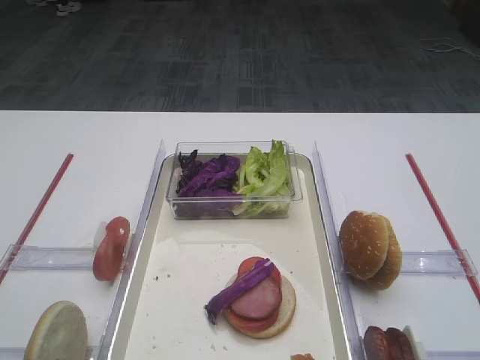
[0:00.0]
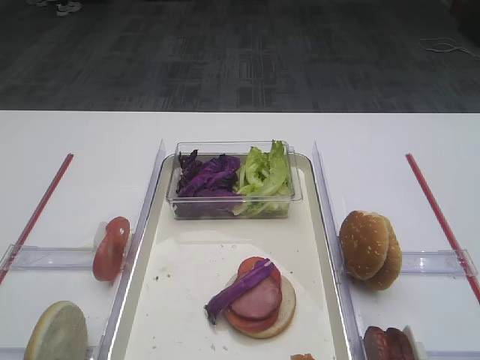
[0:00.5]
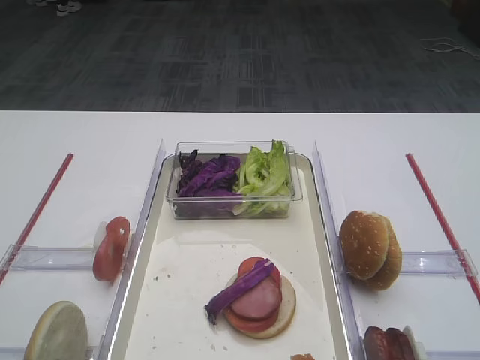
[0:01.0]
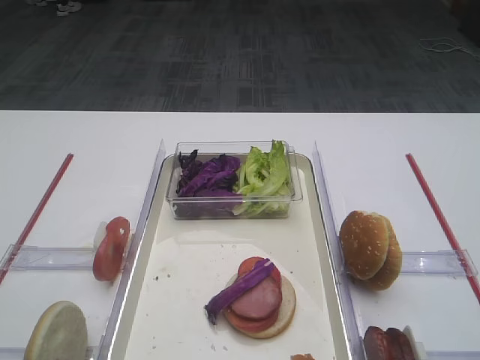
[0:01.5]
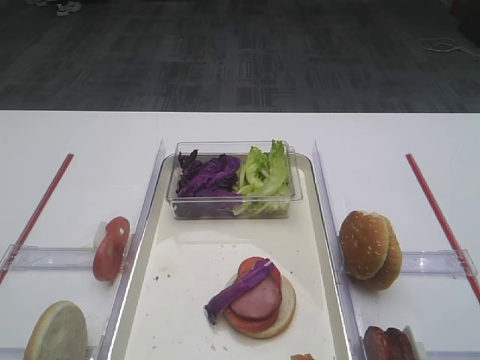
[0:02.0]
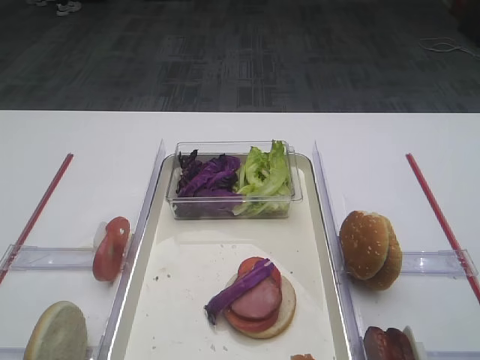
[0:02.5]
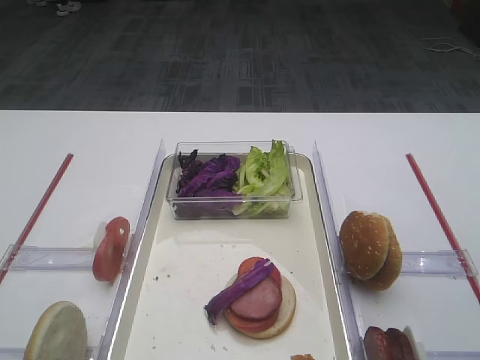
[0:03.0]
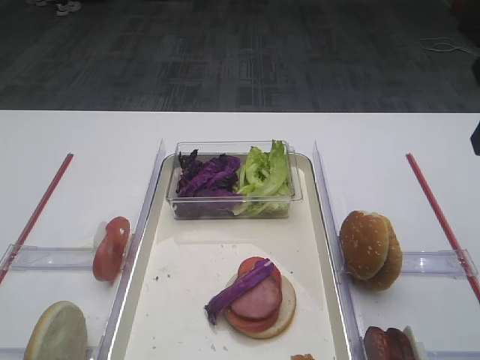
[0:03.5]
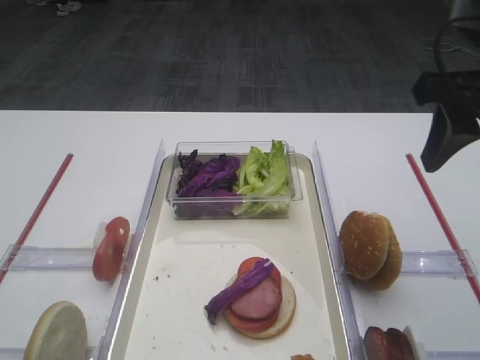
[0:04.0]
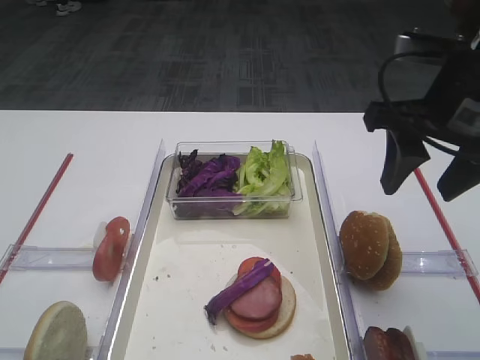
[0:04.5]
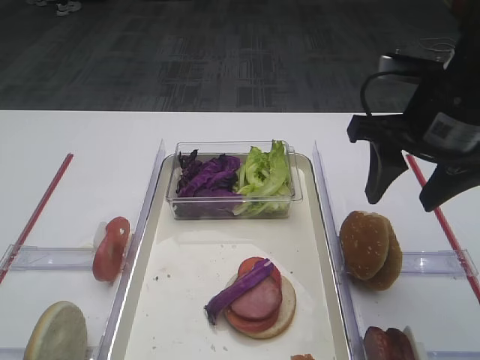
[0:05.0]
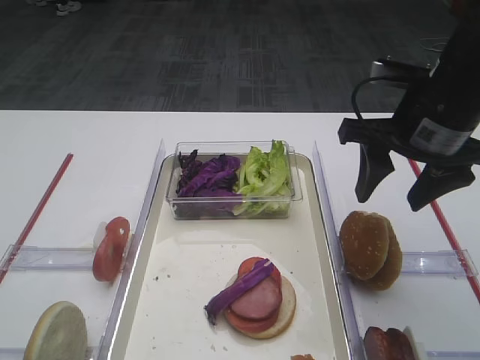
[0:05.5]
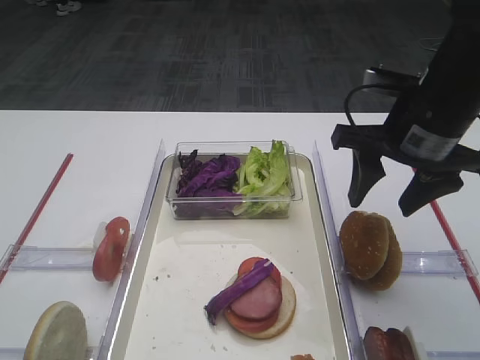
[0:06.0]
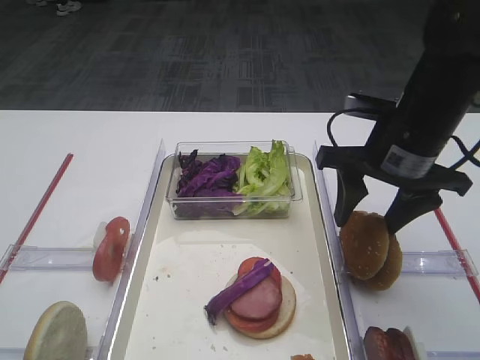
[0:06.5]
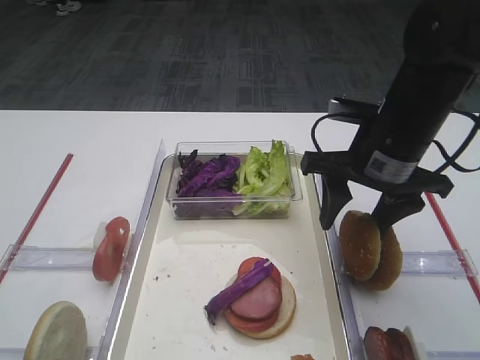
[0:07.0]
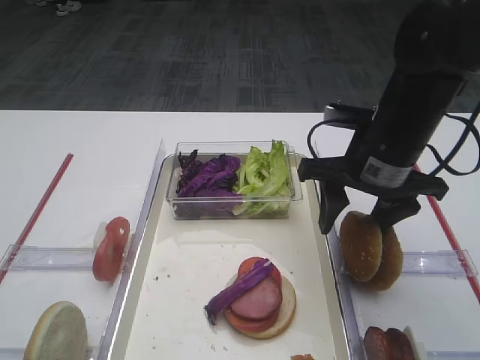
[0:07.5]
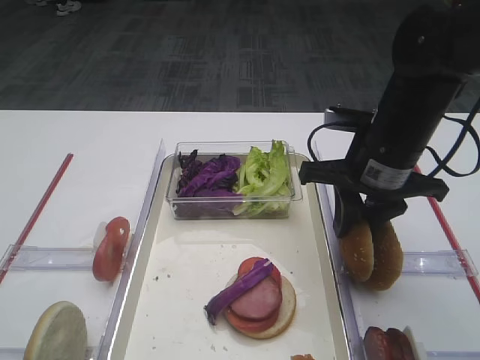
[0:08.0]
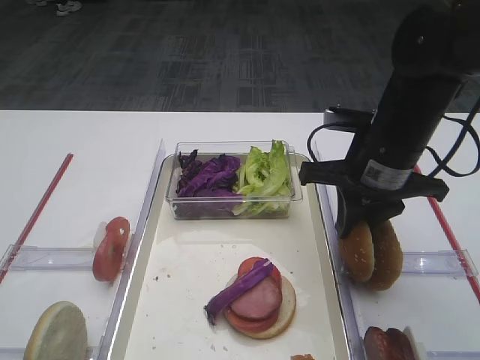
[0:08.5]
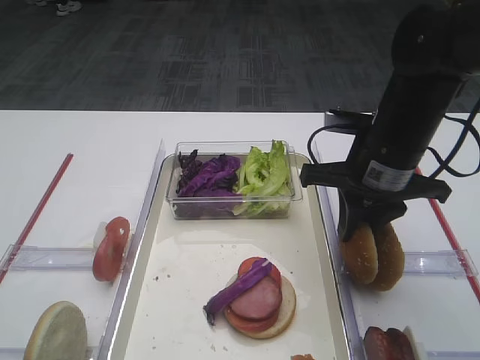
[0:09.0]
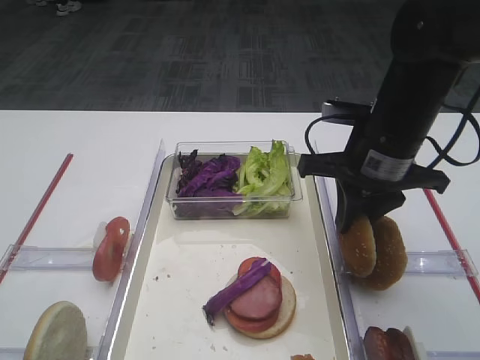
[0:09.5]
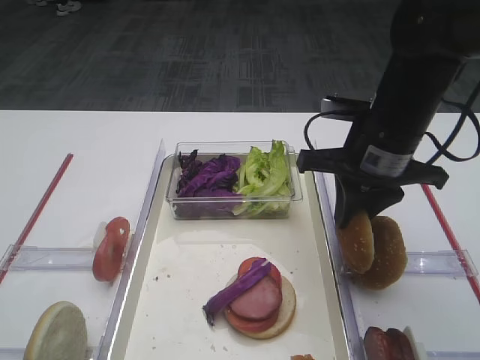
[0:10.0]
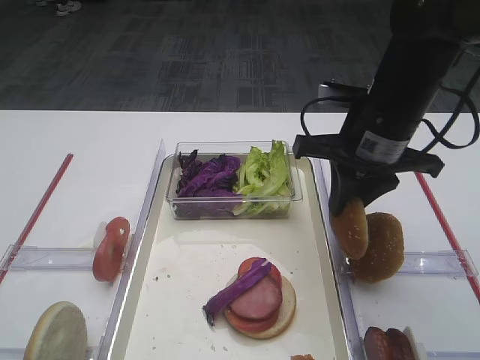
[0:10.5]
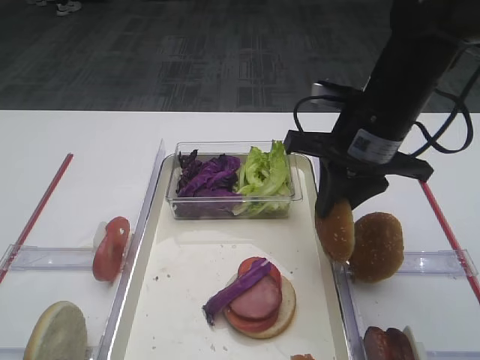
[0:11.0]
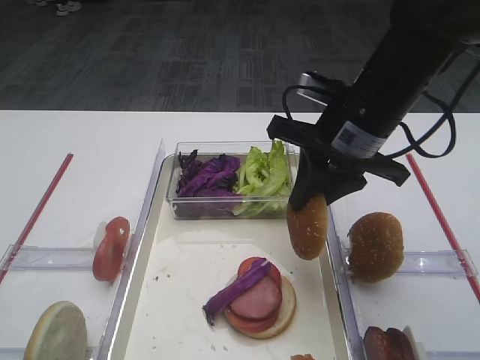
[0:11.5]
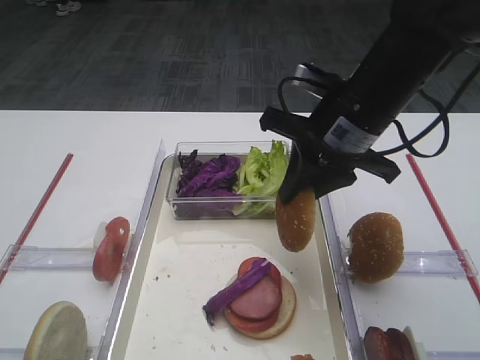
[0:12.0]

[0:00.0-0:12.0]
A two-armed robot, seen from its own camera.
Step, 0:00.0 to 0:11.0: Pick up the hamburger lid with the right gripper.
0:02.0 to 0:04.0: The right gripper is displaced forward by roughly 20 cm.
0:04.0 to 0:06.0: The right gripper moves downward and forward, about 10 cm.
0:06.0 to 0:08.0: The right gripper changes place by roughly 5 cm, and closes up.
0:08.0 to 0:12.0: There are only small adjustments of the grippers.

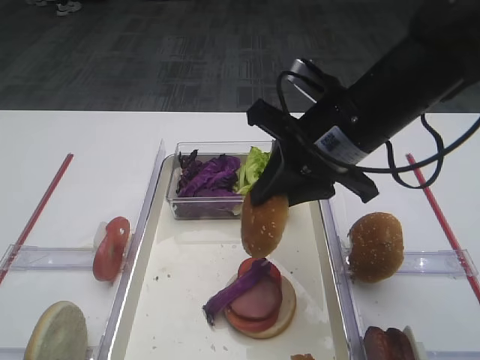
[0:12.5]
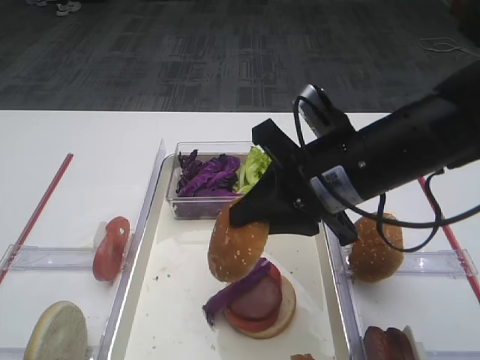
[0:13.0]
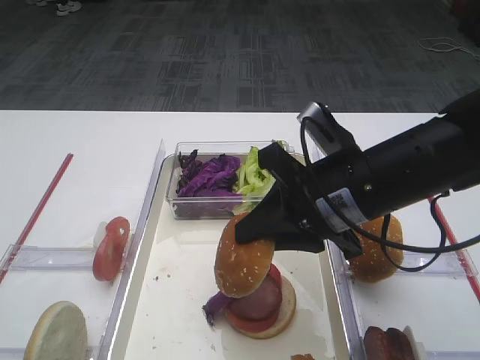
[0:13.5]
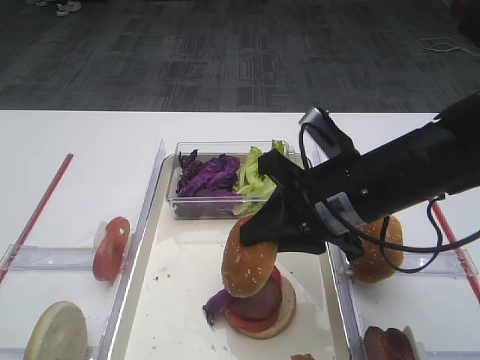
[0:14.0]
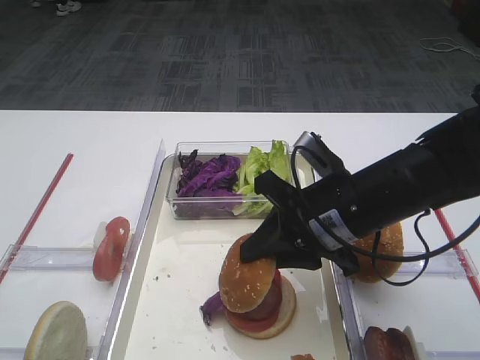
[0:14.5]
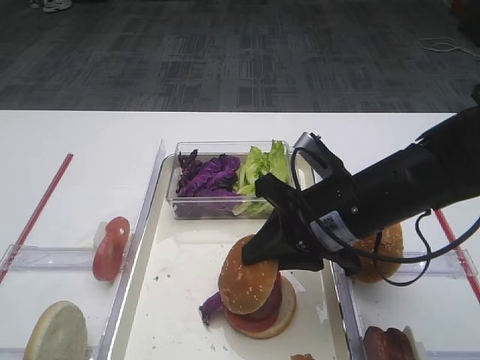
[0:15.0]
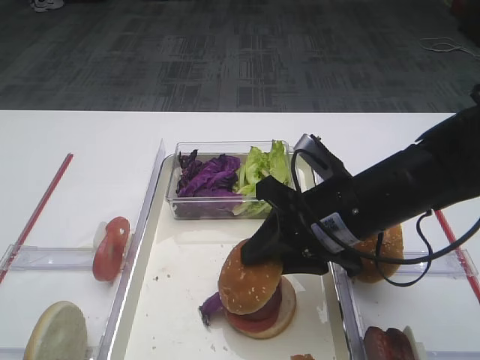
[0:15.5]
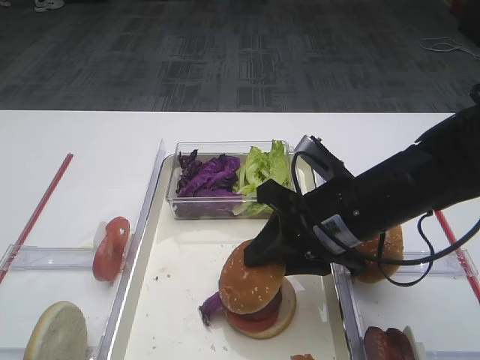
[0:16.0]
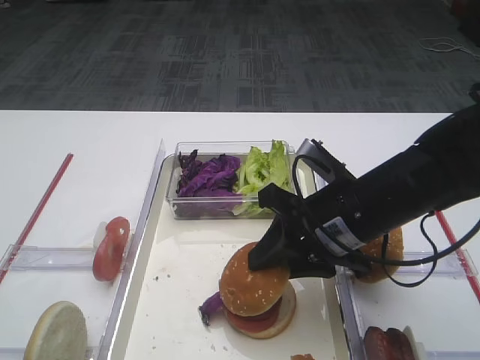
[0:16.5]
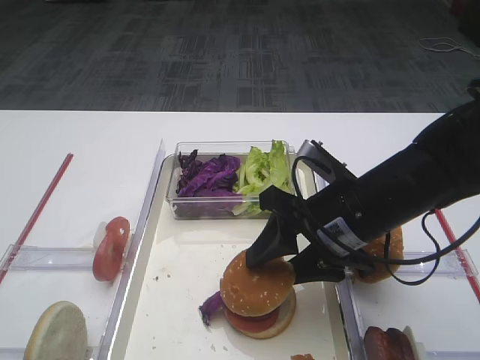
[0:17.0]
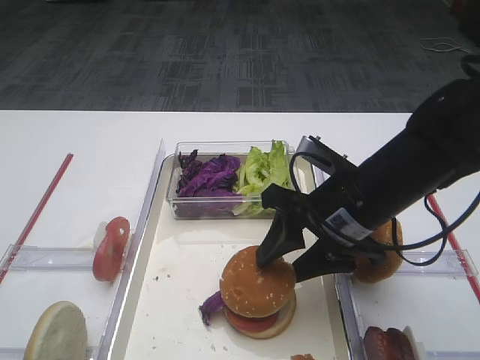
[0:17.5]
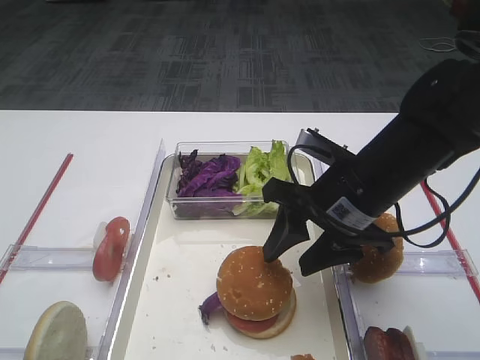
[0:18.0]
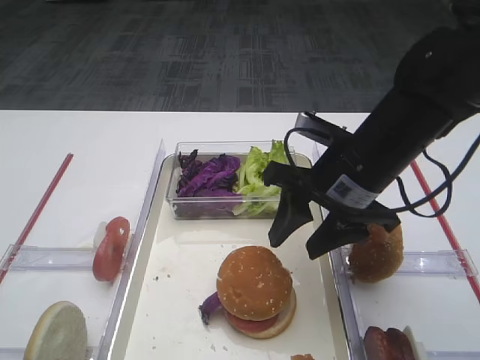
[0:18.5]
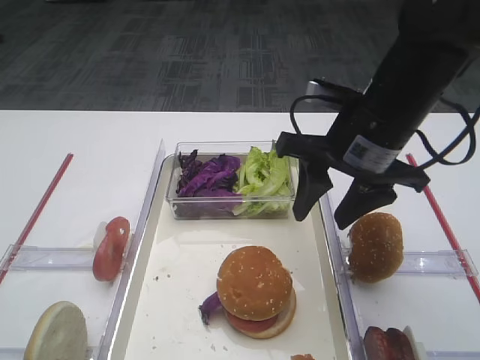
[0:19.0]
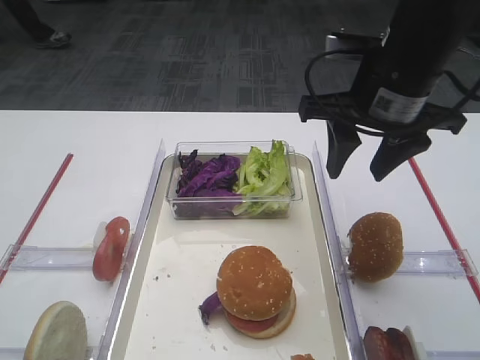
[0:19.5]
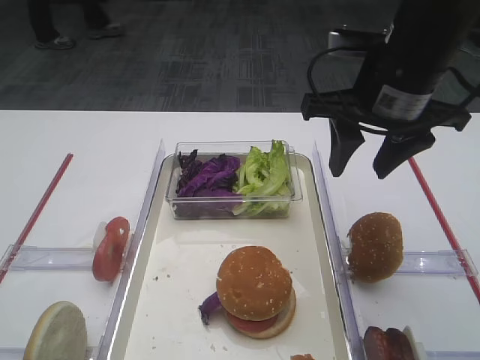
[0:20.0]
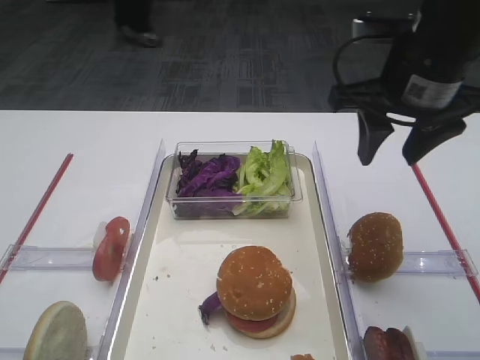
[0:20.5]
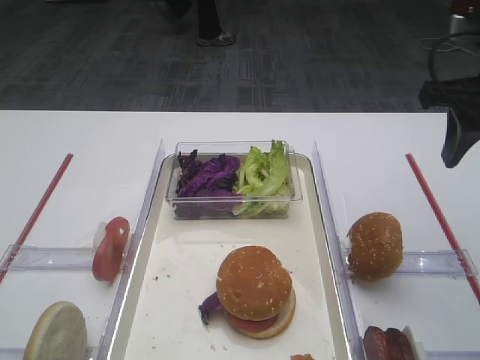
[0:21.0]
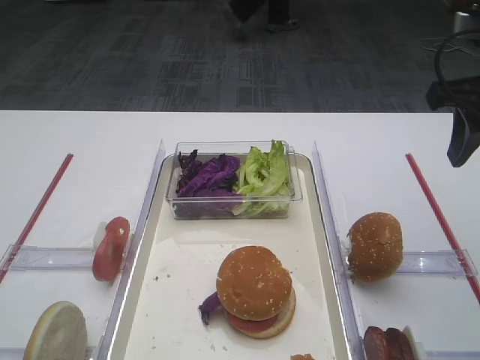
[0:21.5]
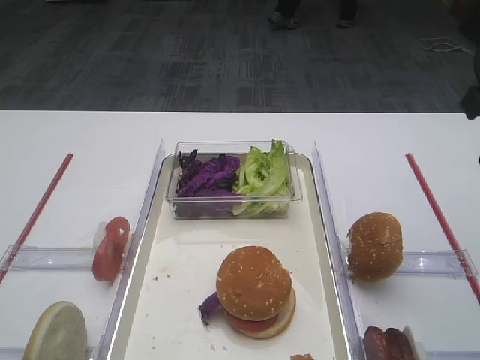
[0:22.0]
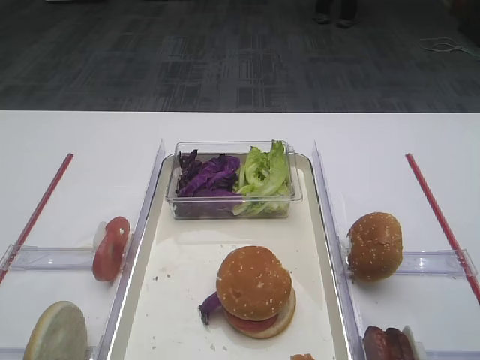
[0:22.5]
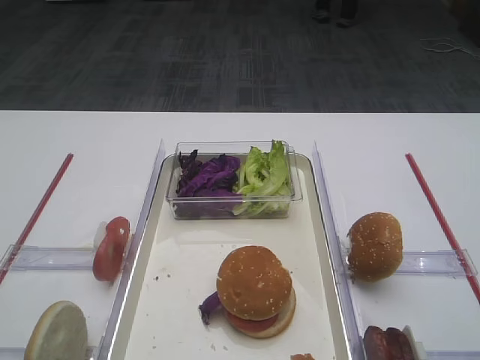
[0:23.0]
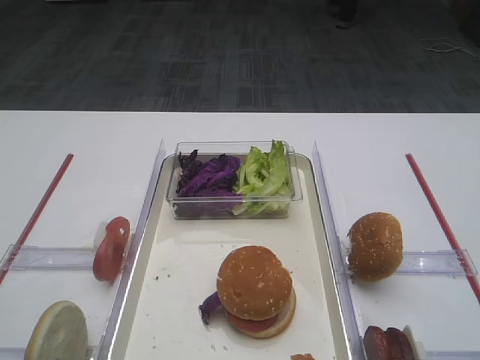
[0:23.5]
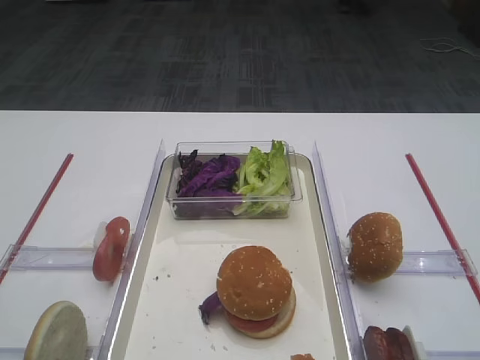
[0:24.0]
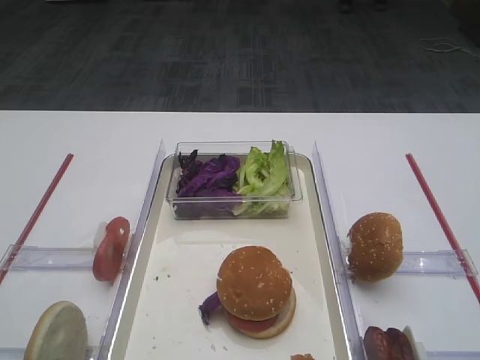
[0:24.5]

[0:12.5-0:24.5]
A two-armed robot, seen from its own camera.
Step, 0:12.5 to 0:19.0: Place the hamburger lid on the purple cabbage with the right gripper.
0:12.5 to 0:14.5: The right gripper shifts some 10 cm downward.
0:14.5 to 0:16.5: The grippers make only small movements.
0:16.5 to 0:18.5: The grippers stay close to where they were, moving slightly.
0:18.5 to 0:20.5: The right gripper shifts roughly 10 cm upward.
0:20.5 to 0:22.5: The right gripper shifts some 20 cm backward and to the right.

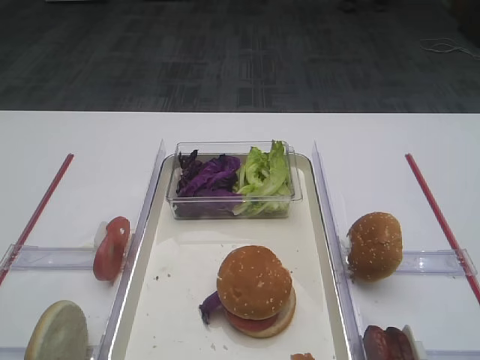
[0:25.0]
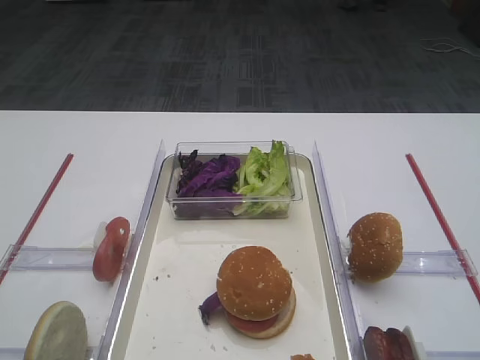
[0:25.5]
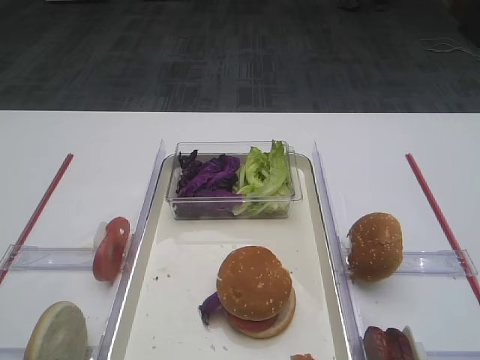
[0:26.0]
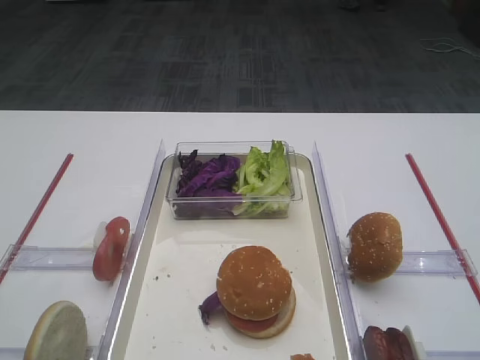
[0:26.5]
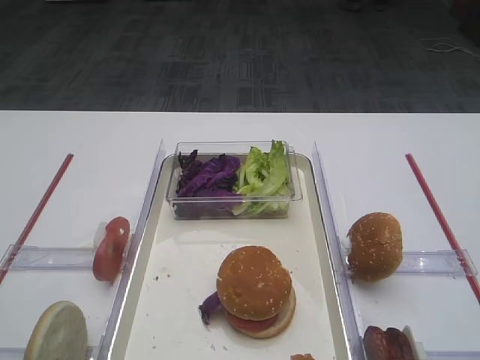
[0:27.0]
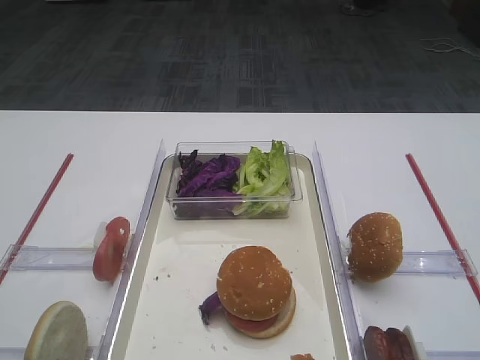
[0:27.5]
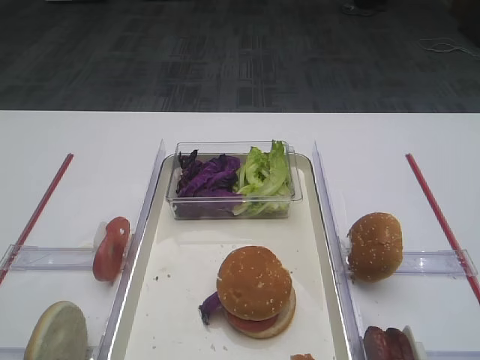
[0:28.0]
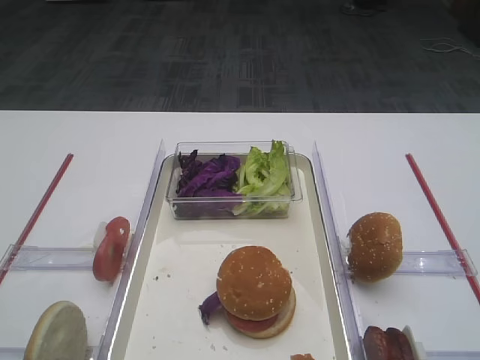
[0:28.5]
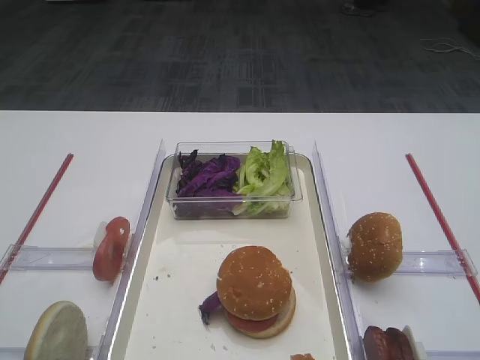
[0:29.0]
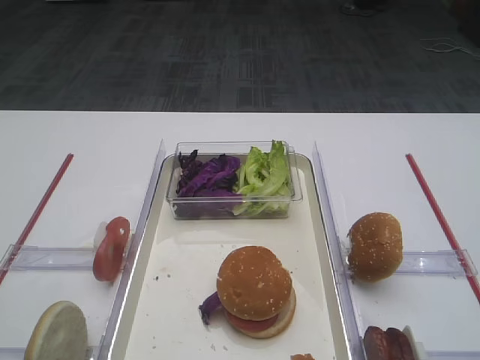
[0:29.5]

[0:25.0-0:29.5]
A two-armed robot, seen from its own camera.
0:25.0 to 0:29.5: The two grippers keep their place.
